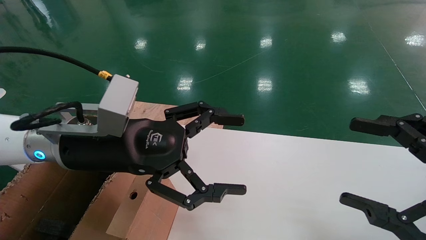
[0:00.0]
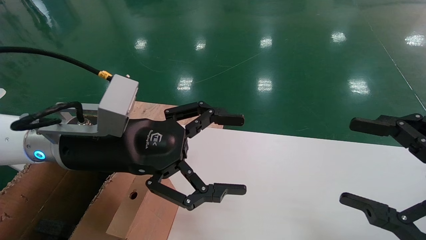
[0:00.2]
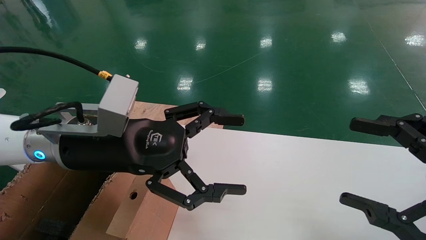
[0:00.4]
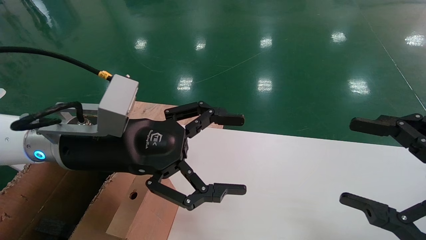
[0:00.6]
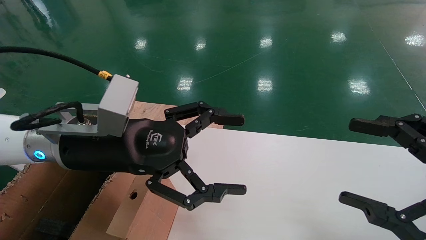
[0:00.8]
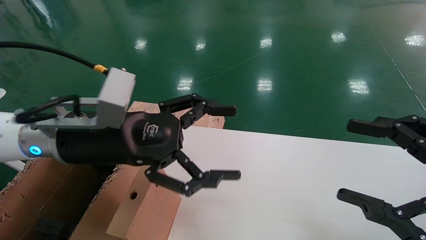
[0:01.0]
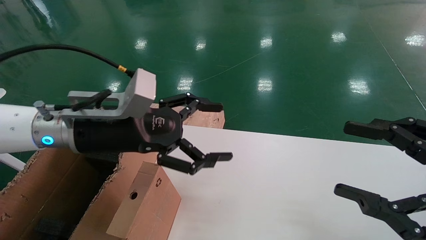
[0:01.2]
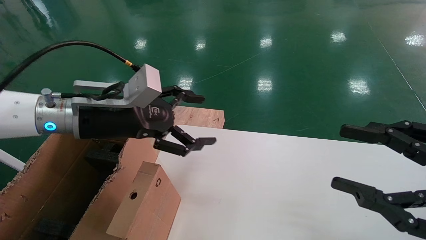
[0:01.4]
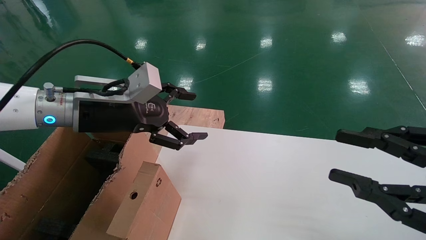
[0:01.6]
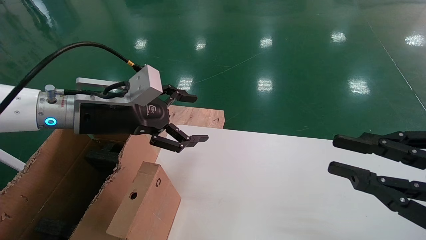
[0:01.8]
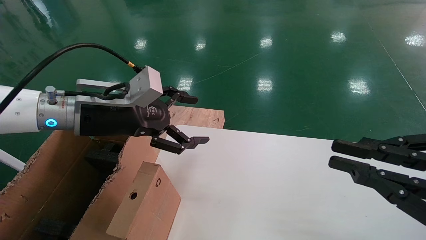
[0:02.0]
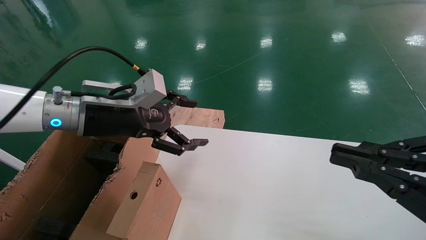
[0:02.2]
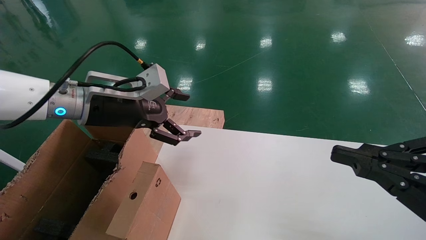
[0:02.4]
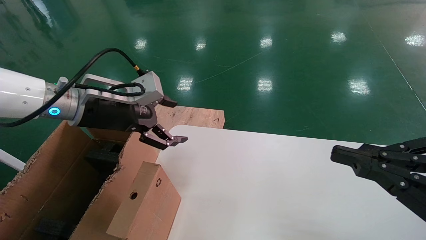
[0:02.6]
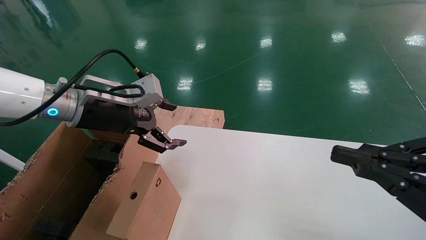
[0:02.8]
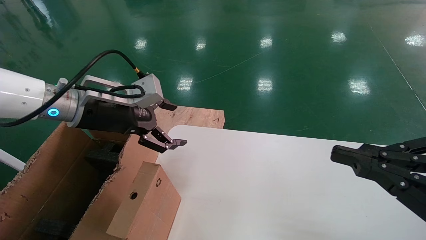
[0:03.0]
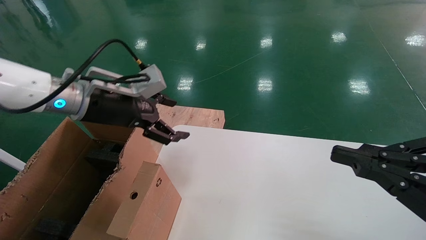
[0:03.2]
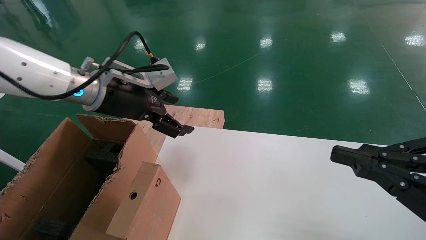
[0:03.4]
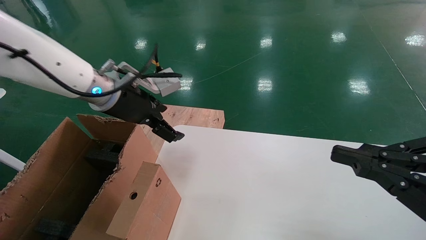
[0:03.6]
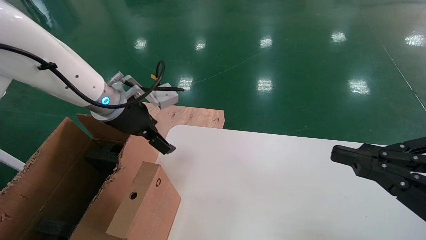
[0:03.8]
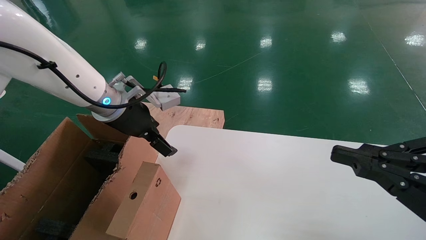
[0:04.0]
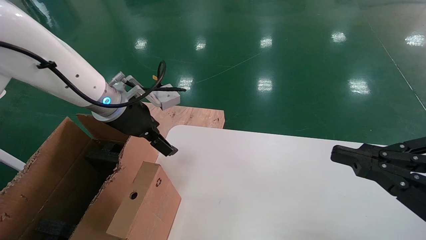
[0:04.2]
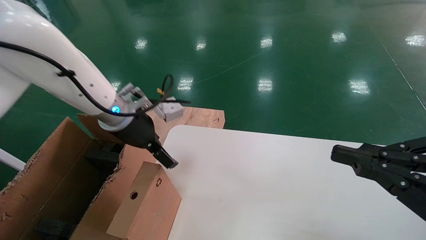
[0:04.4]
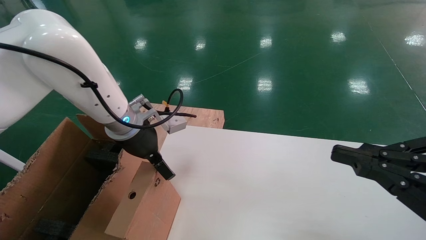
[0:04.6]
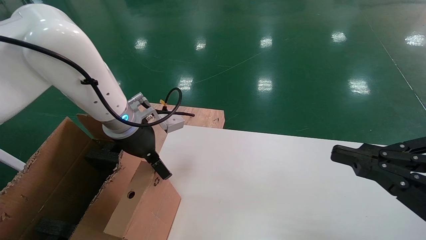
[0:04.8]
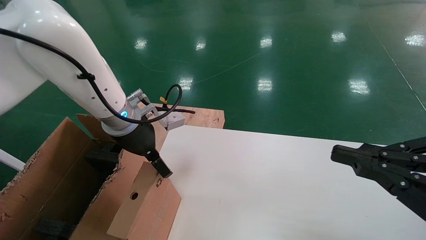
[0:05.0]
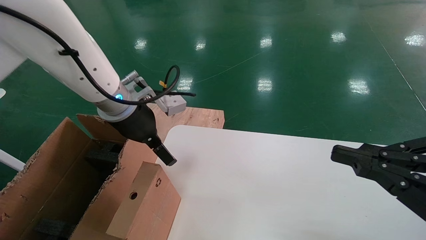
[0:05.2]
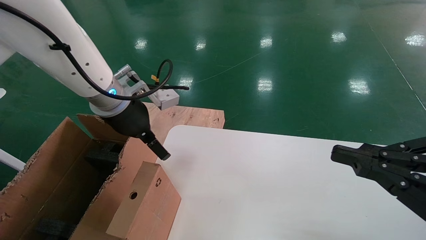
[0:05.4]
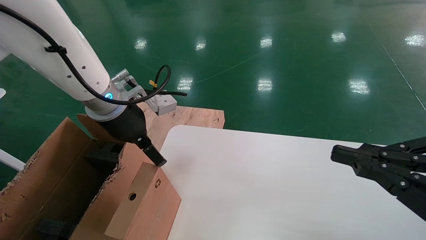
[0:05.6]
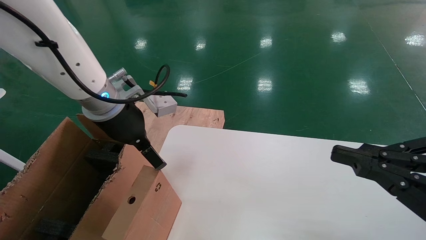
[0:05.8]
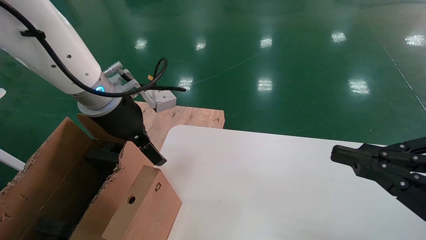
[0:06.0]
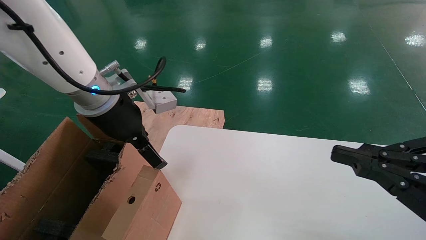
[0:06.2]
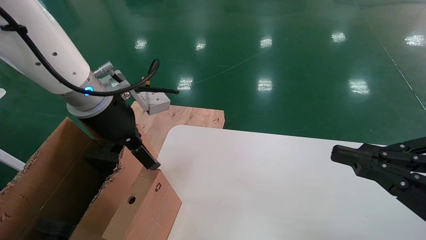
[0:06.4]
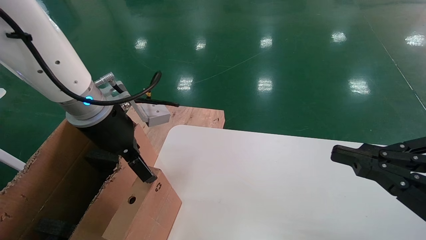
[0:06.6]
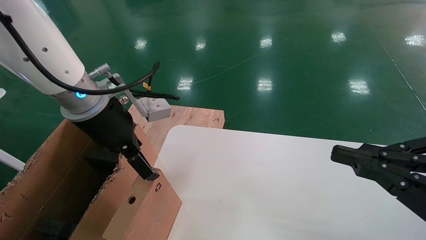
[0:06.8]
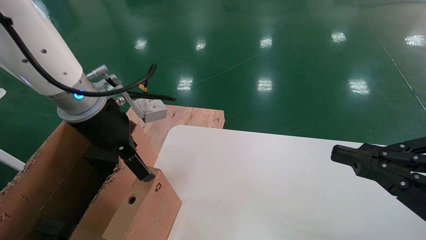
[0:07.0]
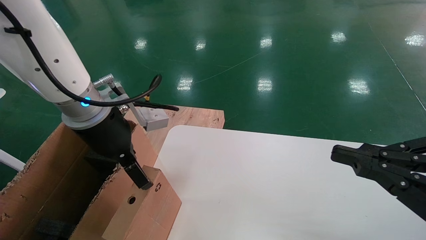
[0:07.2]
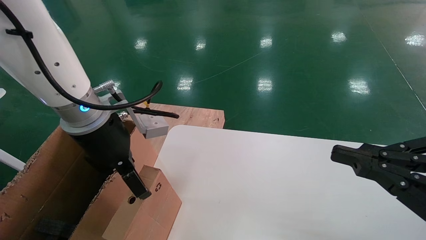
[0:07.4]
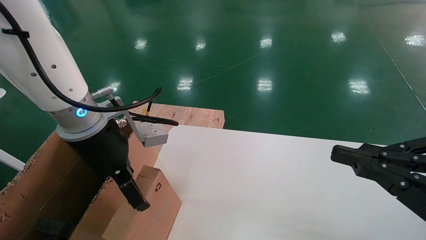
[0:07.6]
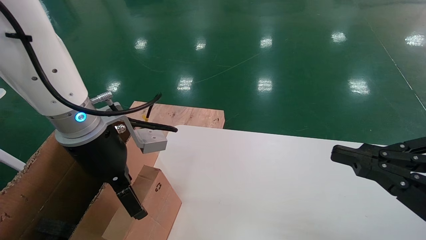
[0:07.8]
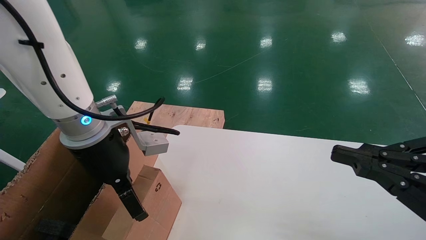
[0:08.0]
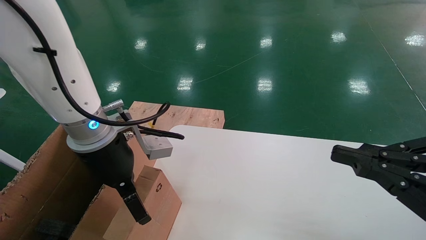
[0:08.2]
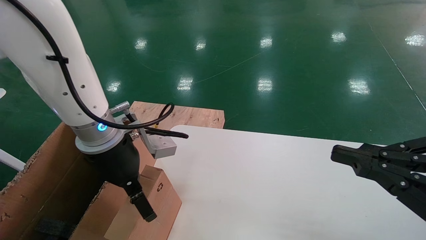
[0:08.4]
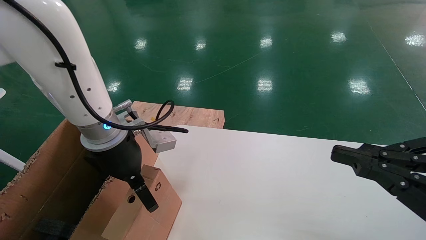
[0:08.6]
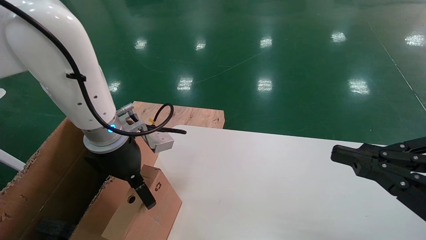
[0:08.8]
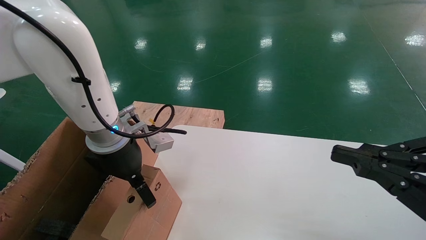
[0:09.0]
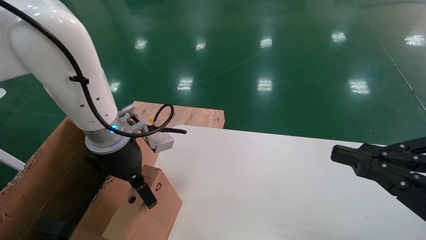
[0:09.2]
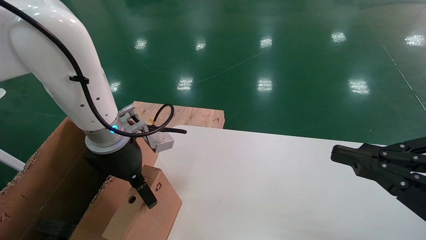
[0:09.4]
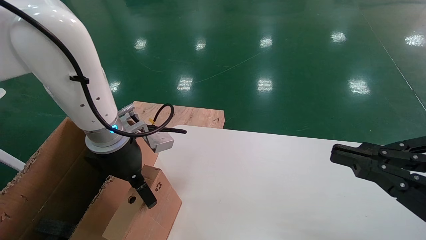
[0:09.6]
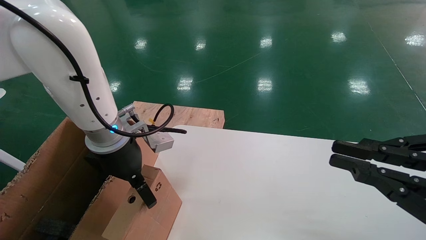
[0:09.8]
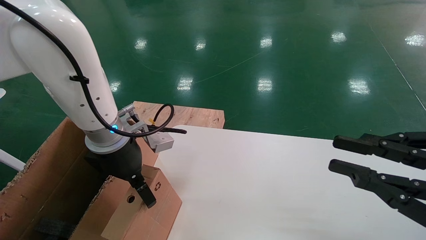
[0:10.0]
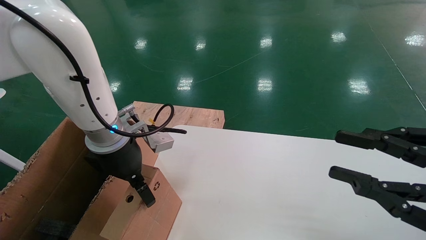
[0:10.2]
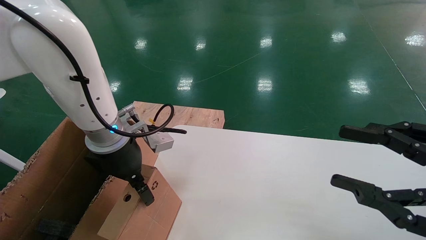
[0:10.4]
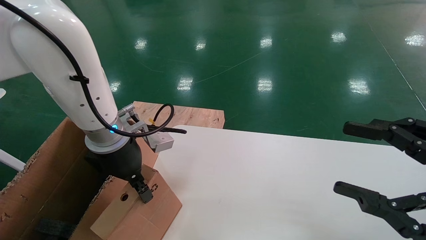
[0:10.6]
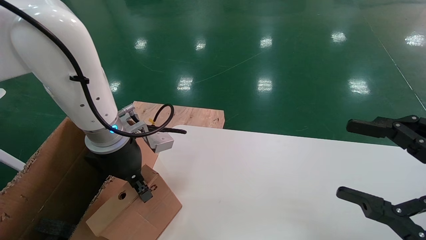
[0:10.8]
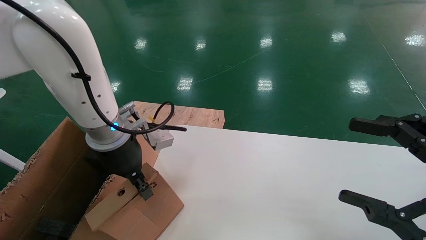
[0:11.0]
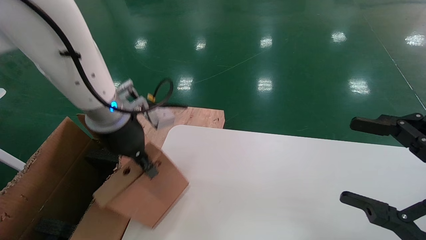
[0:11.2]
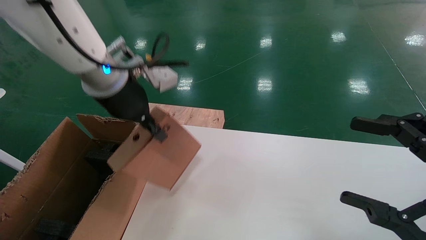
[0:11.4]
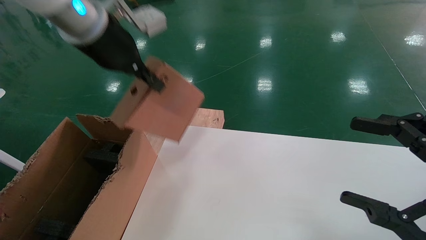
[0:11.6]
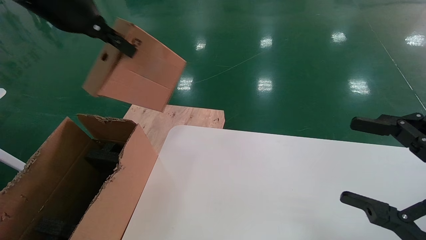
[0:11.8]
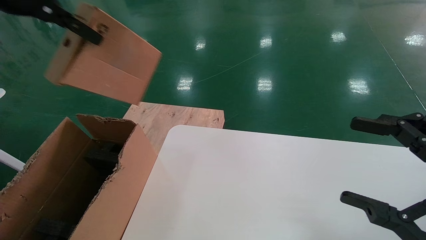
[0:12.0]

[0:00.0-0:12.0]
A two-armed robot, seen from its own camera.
Task of the whole recording: place the small box on the table into the large box on the left.
Step, 0:01.4 to 0:10.8: Pick up the mouse and the power cord paper box.
0:00.0 to 0:01.6: The left gripper is displaced forward by about 5 cm, while the right gripper closes its fingers.
0:01.6 to 0:03.0: The right gripper closes.
0:03.0 to 0:04.4: The left gripper shifts by roughly 5 cm.
0:04.4 to 0:06.0: The left gripper shifts some 5 cm upward.
0:06.0 to 0:07.6: The grippers move only a little.
0:07.6 to 0:09.0: The left gripper ends up some 5 cm from where it was.
0:09.0 to 0:10.4: The right gripper opens its fingers.
0:10.4 to 0:12.0: The left gripper shifts roughly 30 cm upward and to the left, and closes up, while the right gripper opens up.

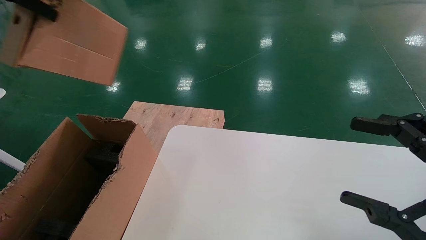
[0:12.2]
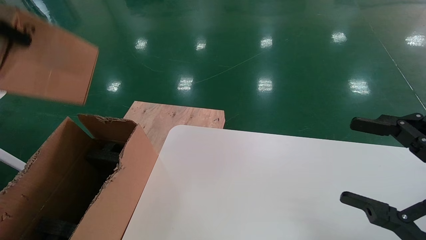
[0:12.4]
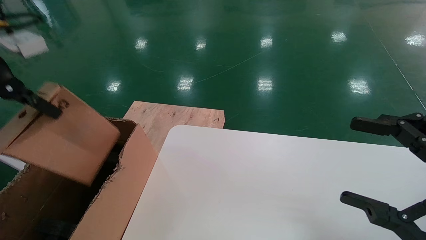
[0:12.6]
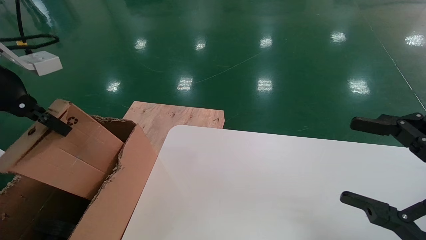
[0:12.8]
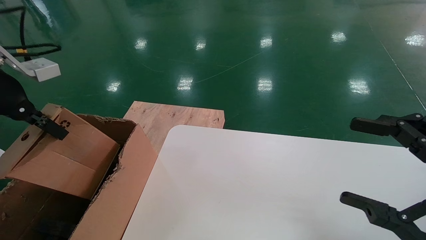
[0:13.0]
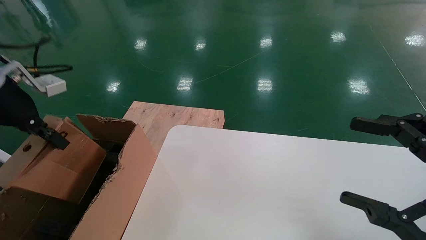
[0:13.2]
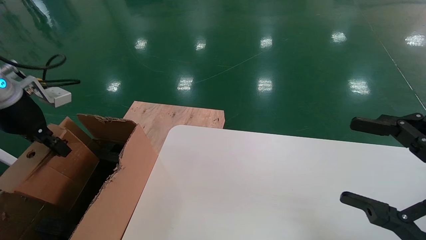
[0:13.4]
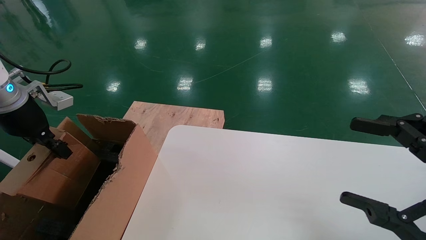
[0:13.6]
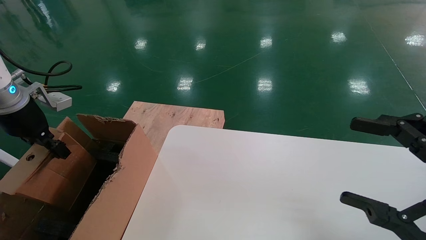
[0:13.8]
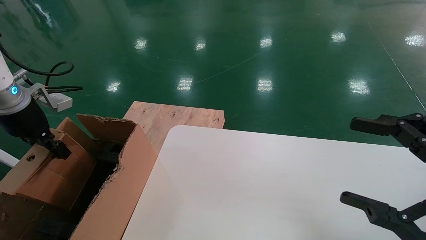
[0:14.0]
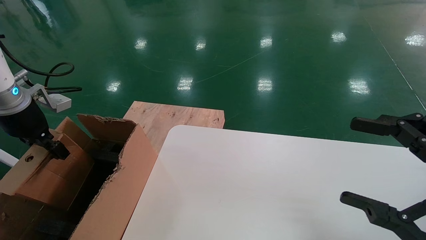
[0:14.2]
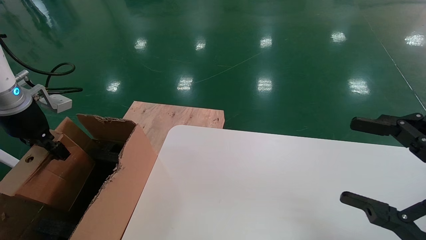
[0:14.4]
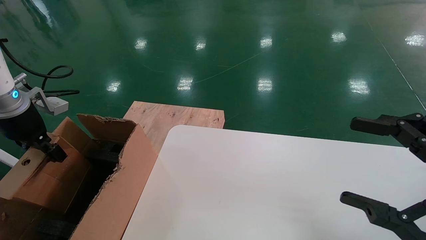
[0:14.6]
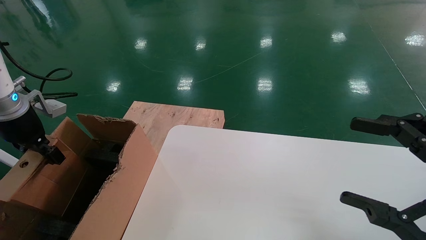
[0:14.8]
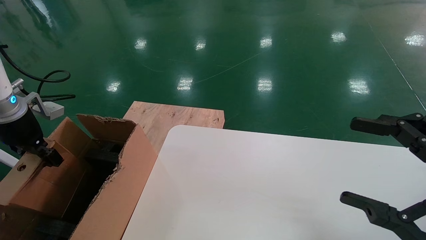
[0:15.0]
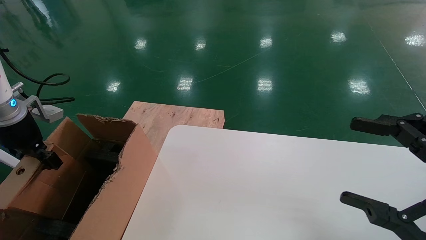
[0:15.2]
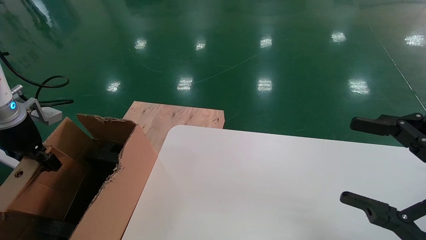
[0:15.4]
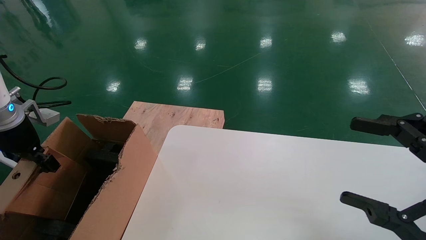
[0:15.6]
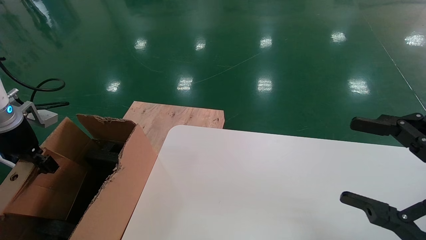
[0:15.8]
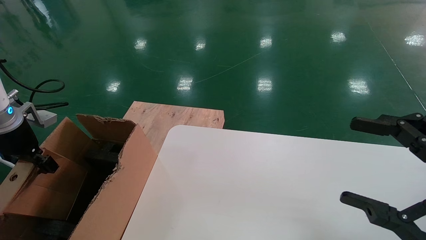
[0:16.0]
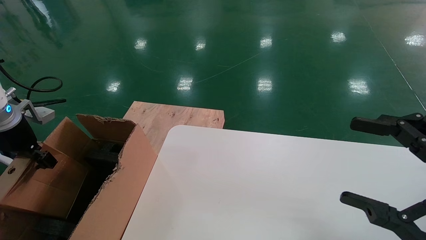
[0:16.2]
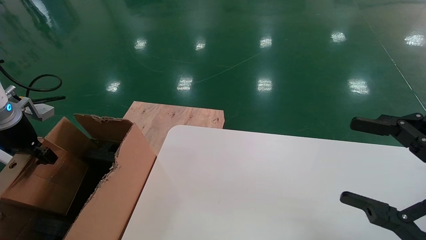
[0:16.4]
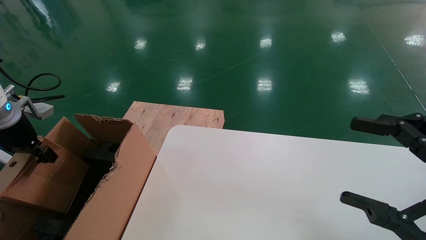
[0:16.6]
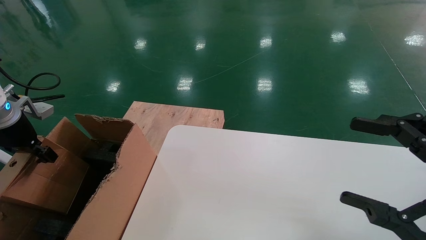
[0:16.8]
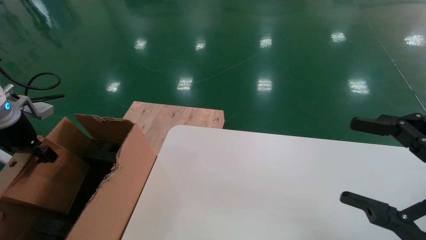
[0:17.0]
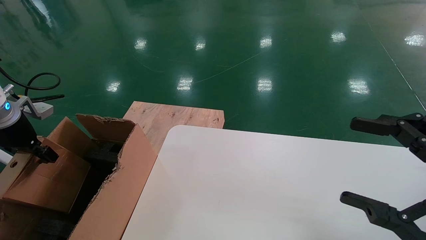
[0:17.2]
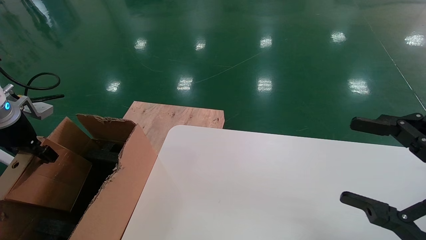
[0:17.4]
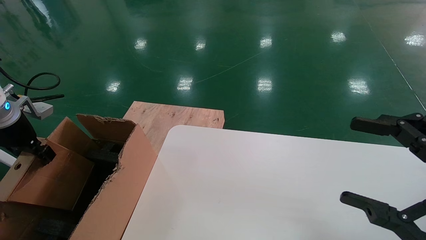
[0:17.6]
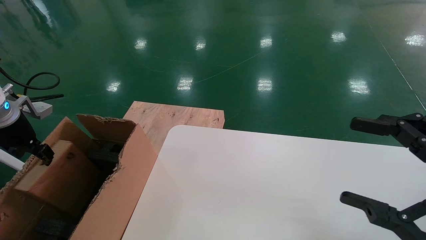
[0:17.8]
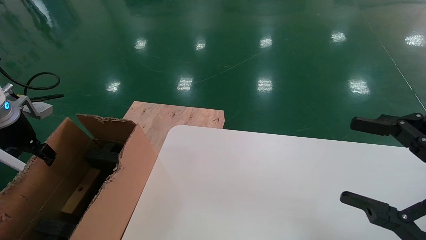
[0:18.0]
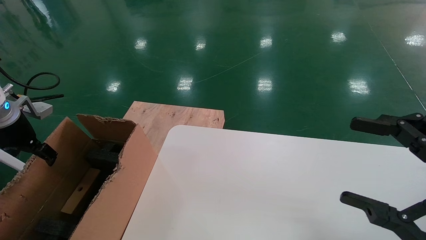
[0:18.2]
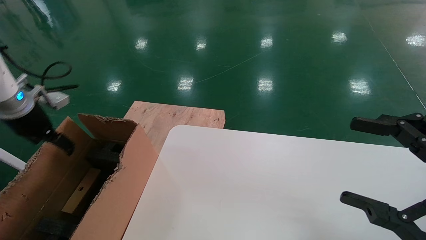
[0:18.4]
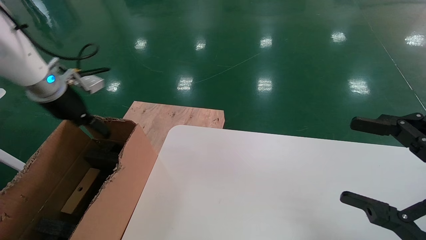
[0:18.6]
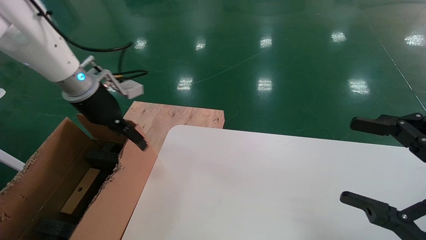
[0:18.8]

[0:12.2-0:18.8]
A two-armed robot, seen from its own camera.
Task of the whole recording: place the small box on the table into the large box on the left.
Step, 0:12.2 to 0:18.0: Place the mouse and the power cord paper box into the container.
0:12.2 to 0:13.8: The left gripper heads downward, covering roughly 20 cm.
0:13.8 to 0:15.4: The left gripper ends up some 5 cm from where it was.
0:15.4 to 0:17.2: The grippers move only a little.
0:17.2 to 0:18.8: The left gripper is displaced to the right by some 20 cm, and opens its fingers.
